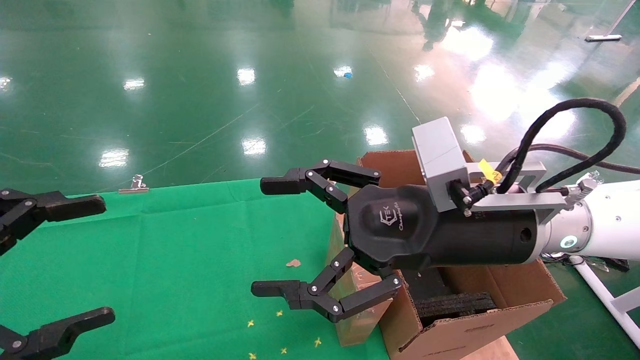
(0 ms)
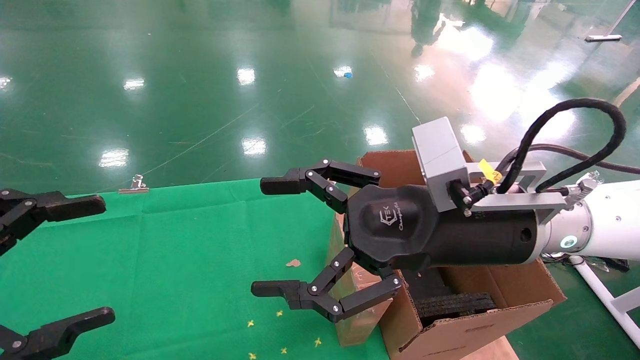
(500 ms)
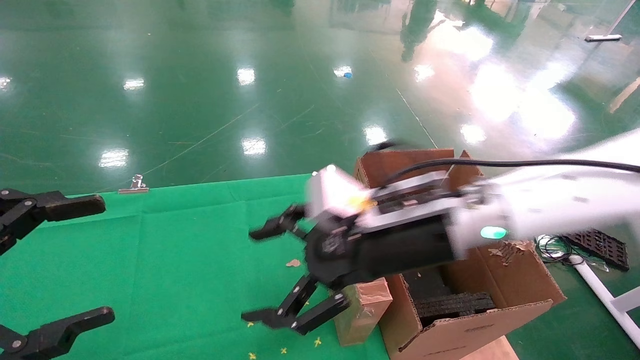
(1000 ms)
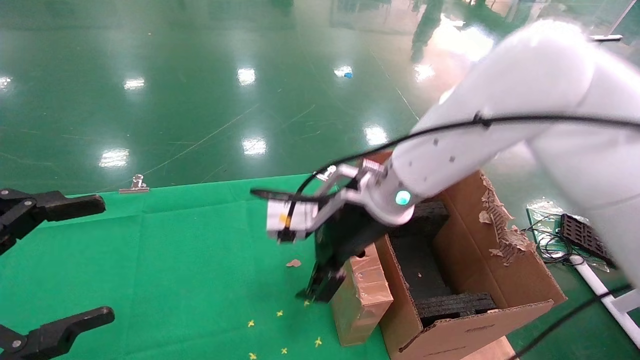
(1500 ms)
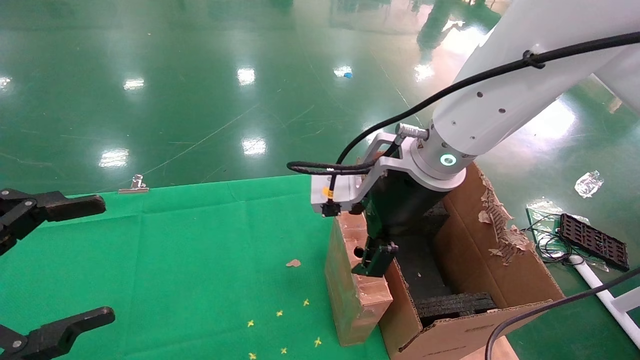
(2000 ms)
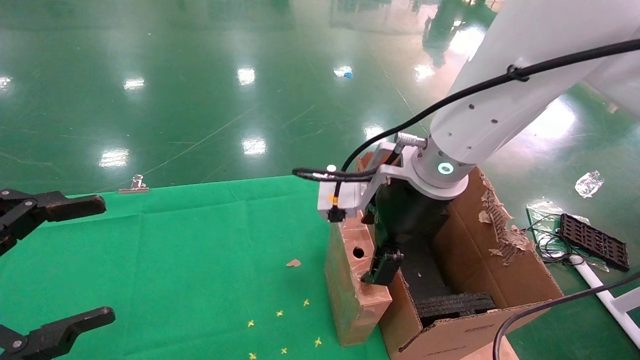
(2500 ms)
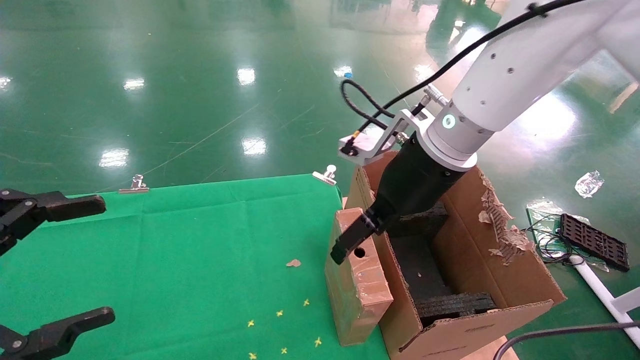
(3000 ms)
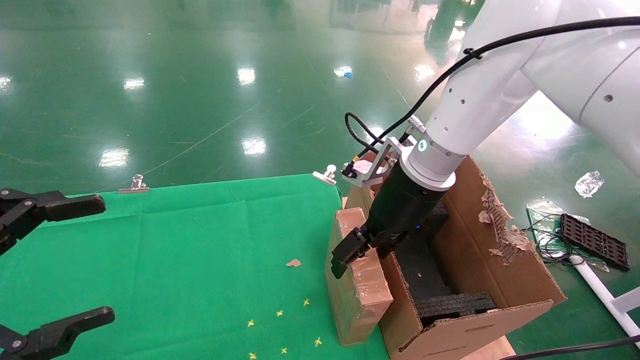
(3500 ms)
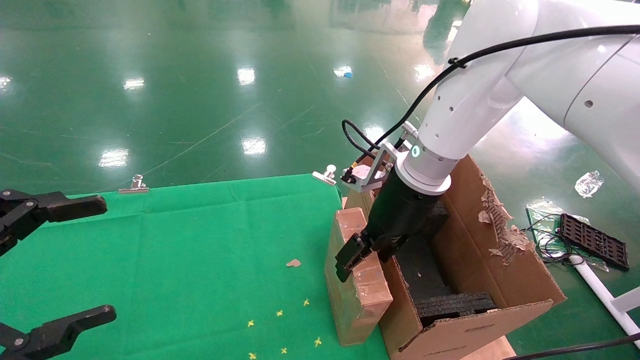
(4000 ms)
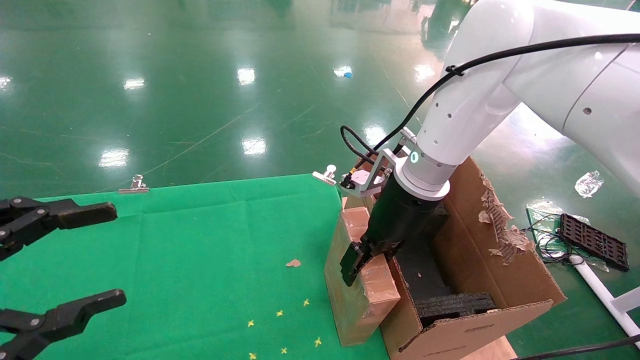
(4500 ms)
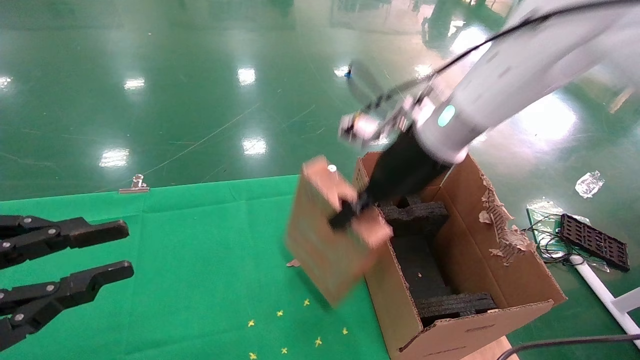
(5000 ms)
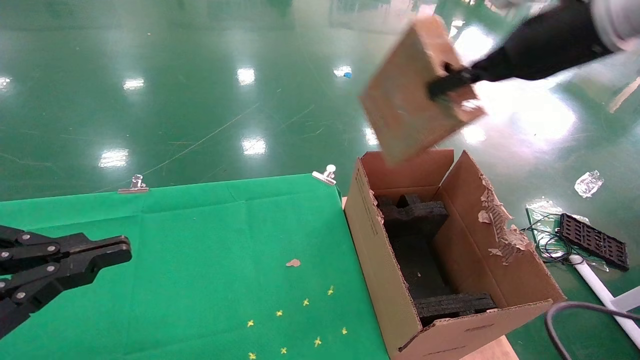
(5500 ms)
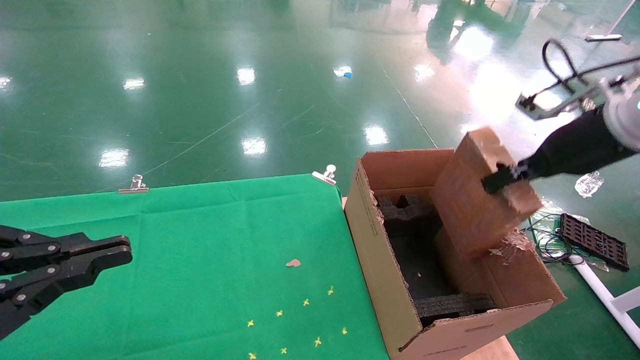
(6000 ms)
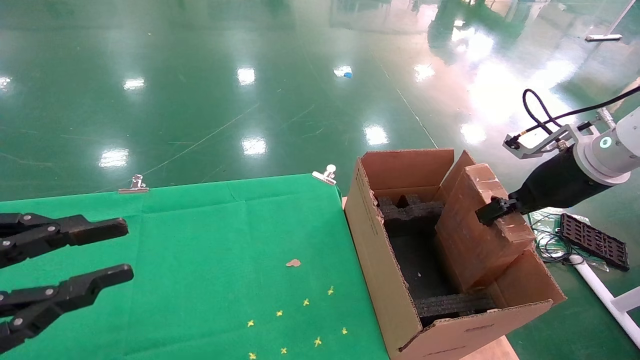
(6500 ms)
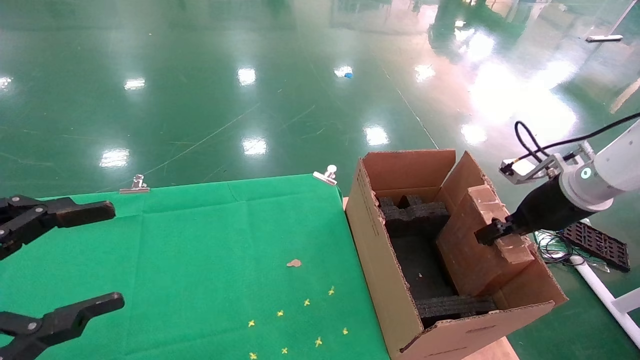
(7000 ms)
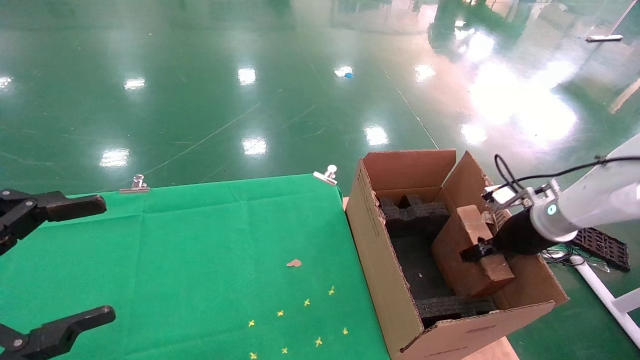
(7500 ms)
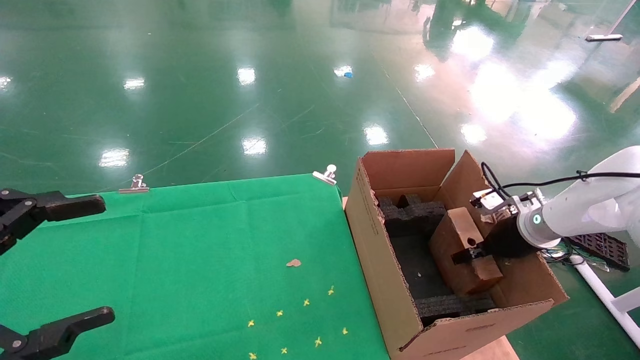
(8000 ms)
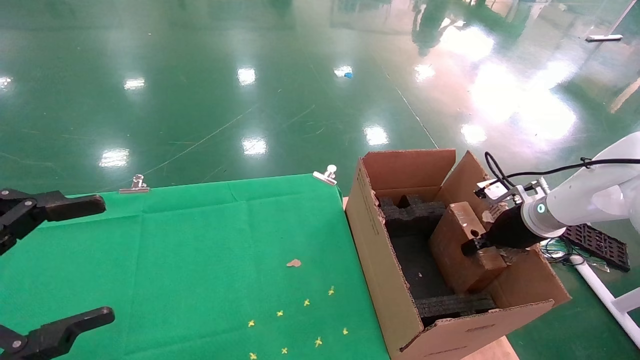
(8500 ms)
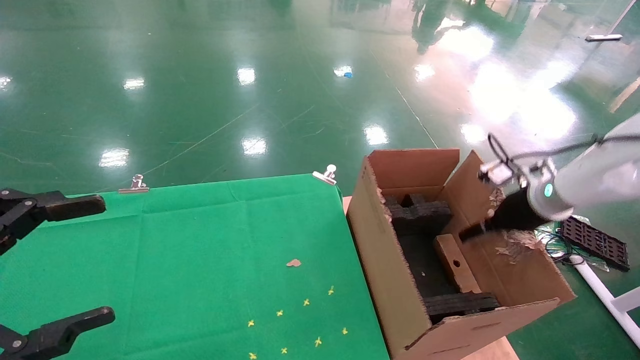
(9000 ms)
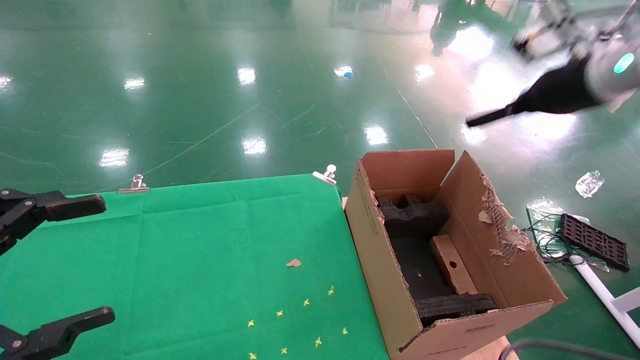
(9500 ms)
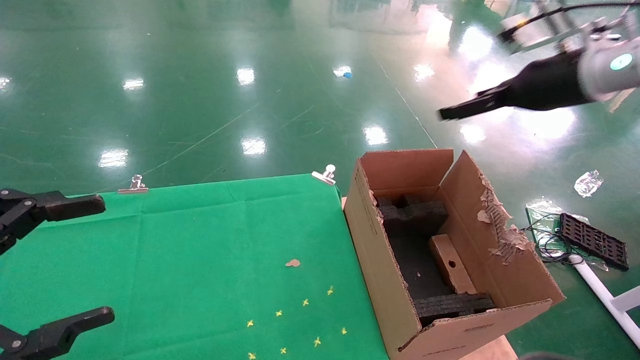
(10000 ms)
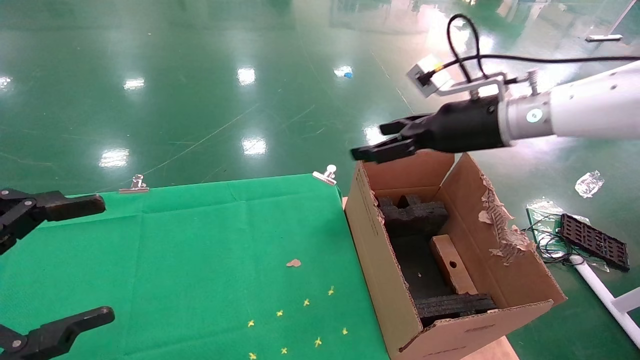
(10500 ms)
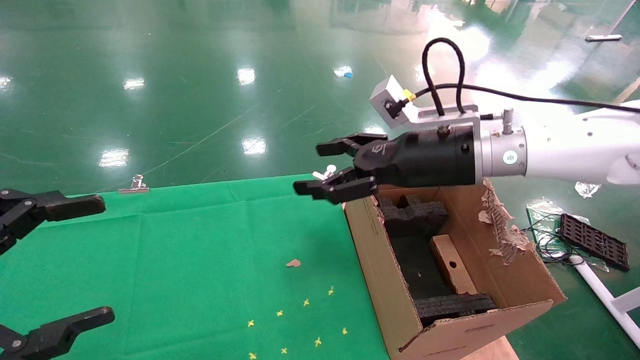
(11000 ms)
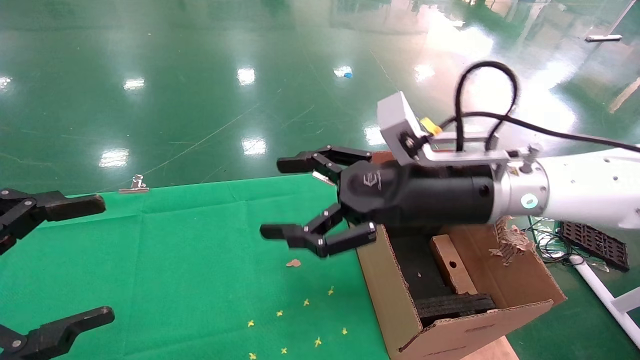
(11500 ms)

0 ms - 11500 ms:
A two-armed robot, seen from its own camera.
Task of the whole recording: using a robotic arm to pick up a cardboard box and palace it the carton.
Step, 1500 ms - 4000 ms: Pick up the mouse and the power cord paper box.
Step, 4500 ms - 9500 ms: Place the mouse and the power cord paper box into the container.
0 ms - 2000 ms: The right gripper heads forward, covering approximately 10 cm.
2000 ms - 4000 ms: The right gripper is displaced forward by about 5 cm.
4000 ms - 6000 ms: The right gripper moves to the right, roughly 25 cm, and closes its fingers, while the left gripper closes.
6000 ms - 7500 ms: The right gripper is displaced downward by some 20 cm, while the left gripper opens.
7500 ms - 9500 ms: The right gripper travels upward by some 20 cm, and opens up.
9500 ms - 11500 ms: The right gripper is displaced to the left by some 25 cm.

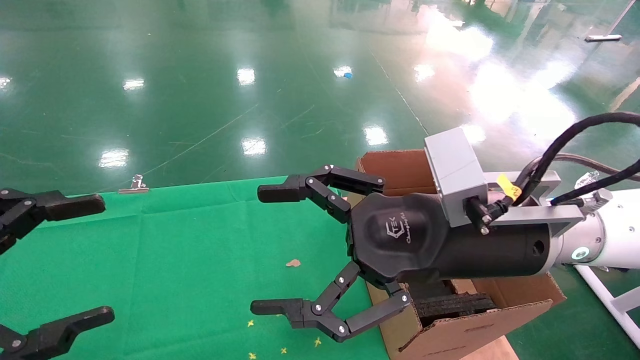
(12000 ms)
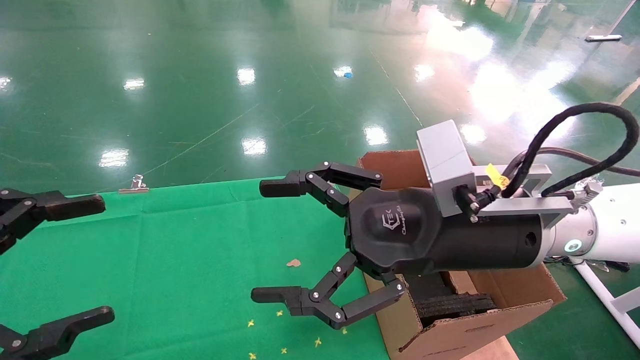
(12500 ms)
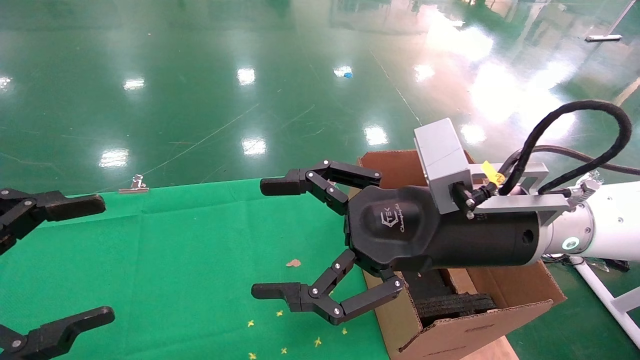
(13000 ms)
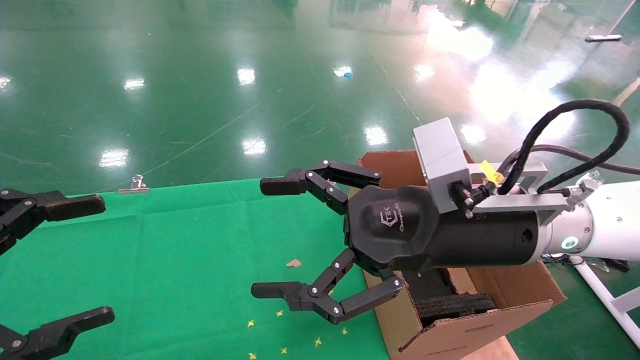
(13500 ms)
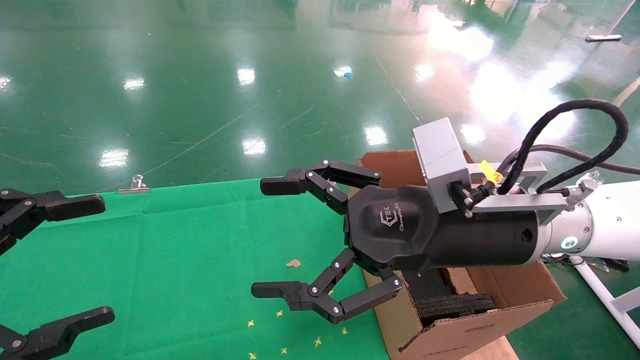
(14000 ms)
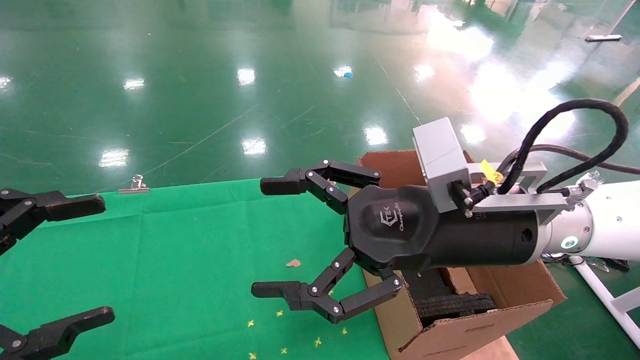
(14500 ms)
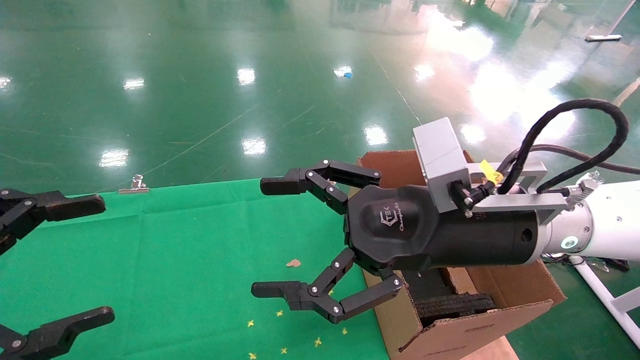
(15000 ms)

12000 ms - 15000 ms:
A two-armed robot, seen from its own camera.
Task of the whole recording: using a robotic arm to pick up a cardboard box and palace it the carton.
12000 ms - 15000 ms: The two grippers keep their place.
